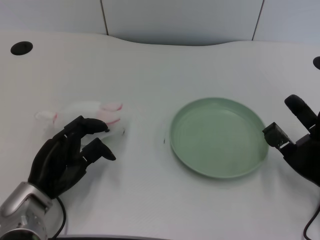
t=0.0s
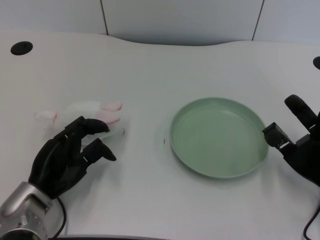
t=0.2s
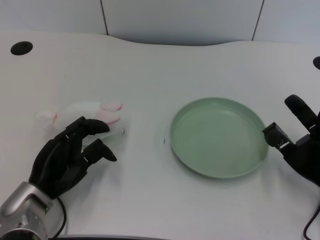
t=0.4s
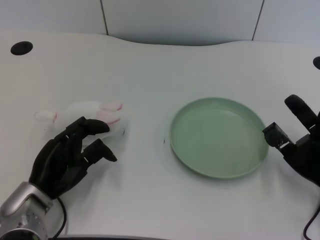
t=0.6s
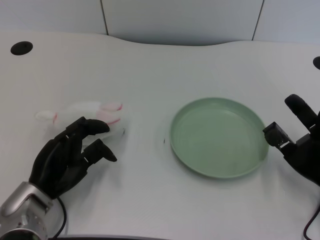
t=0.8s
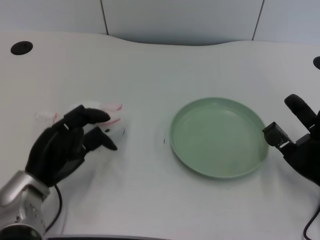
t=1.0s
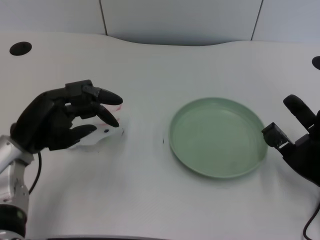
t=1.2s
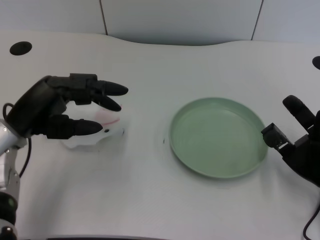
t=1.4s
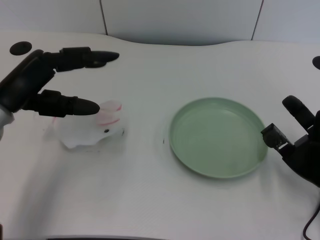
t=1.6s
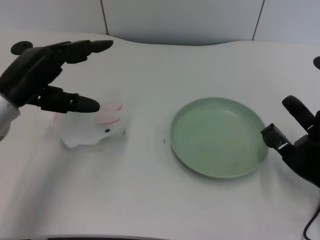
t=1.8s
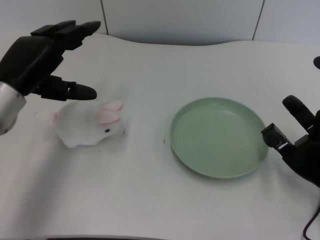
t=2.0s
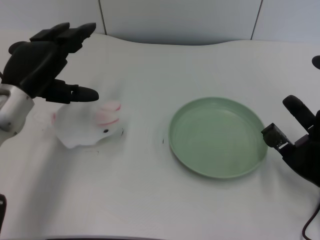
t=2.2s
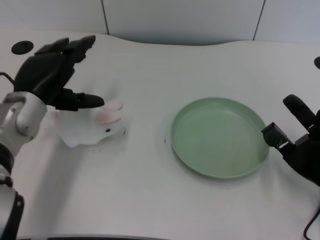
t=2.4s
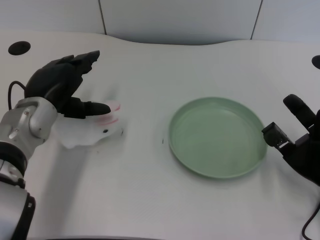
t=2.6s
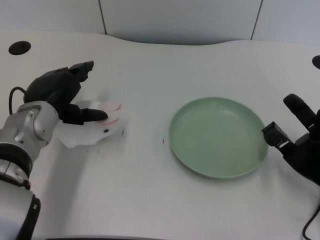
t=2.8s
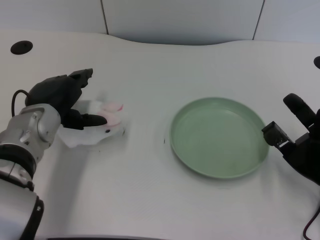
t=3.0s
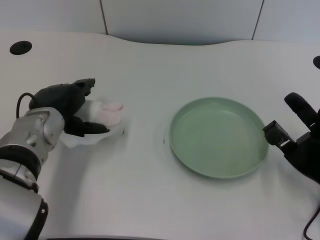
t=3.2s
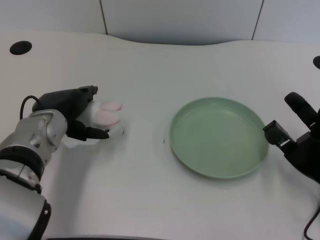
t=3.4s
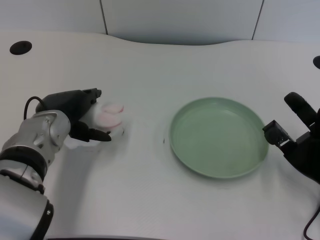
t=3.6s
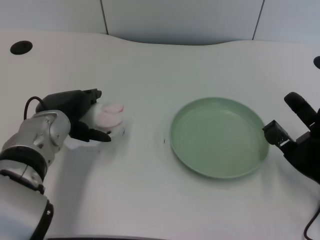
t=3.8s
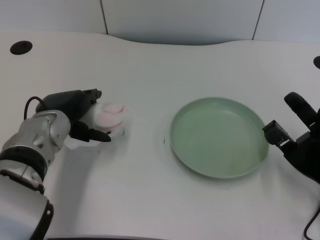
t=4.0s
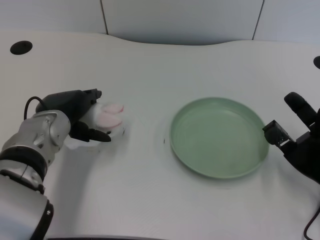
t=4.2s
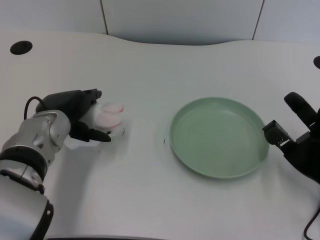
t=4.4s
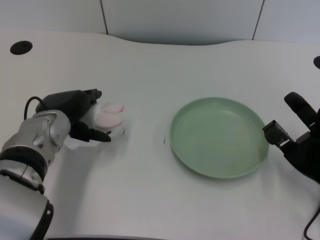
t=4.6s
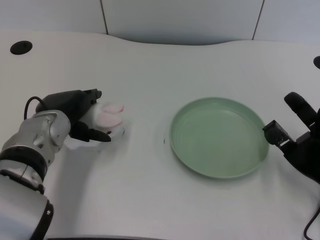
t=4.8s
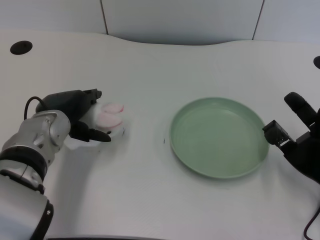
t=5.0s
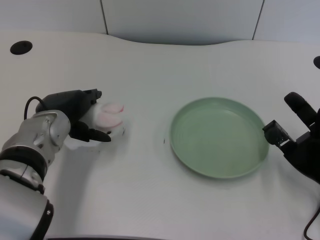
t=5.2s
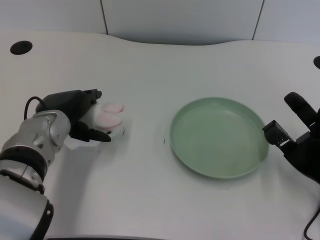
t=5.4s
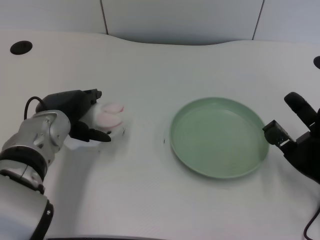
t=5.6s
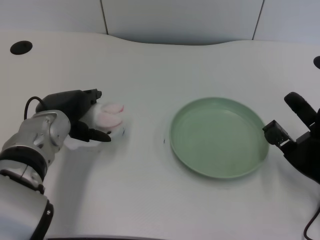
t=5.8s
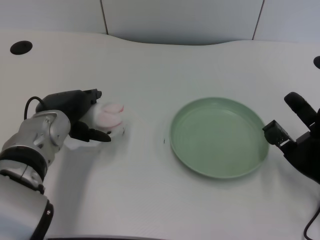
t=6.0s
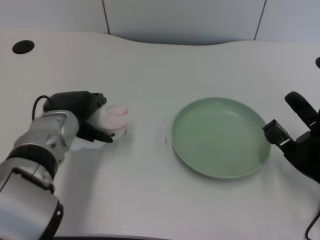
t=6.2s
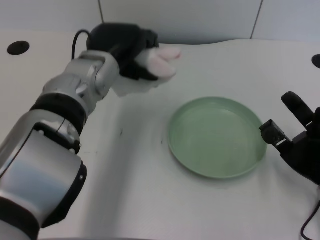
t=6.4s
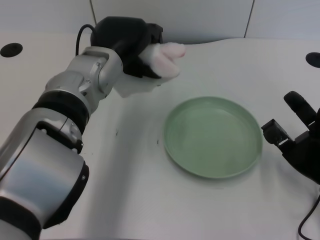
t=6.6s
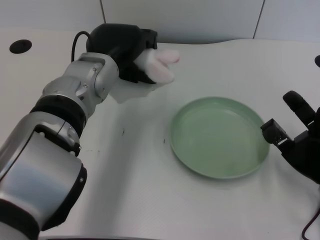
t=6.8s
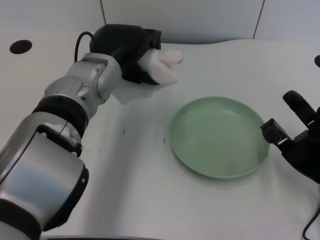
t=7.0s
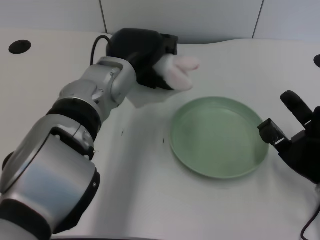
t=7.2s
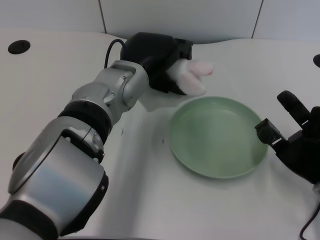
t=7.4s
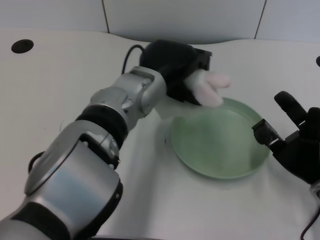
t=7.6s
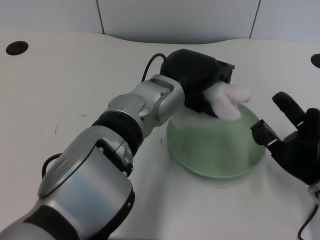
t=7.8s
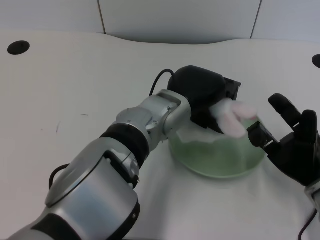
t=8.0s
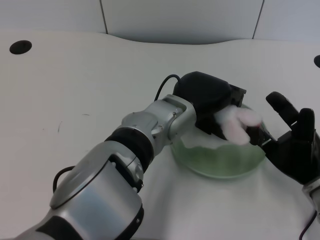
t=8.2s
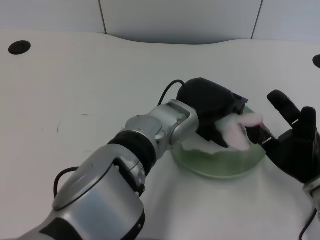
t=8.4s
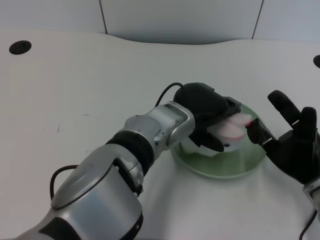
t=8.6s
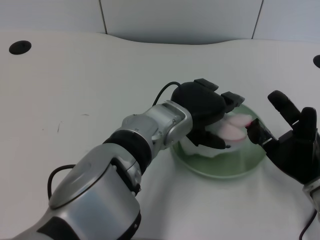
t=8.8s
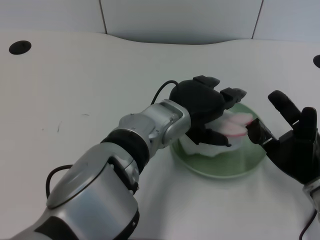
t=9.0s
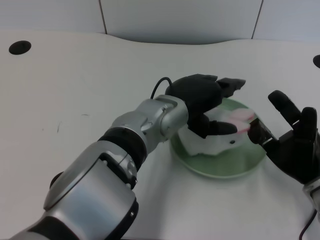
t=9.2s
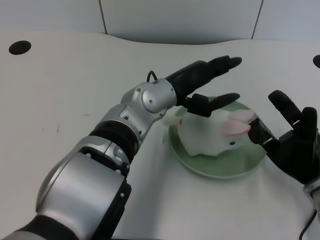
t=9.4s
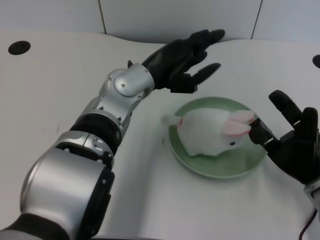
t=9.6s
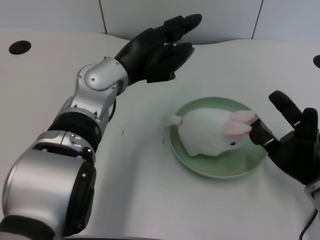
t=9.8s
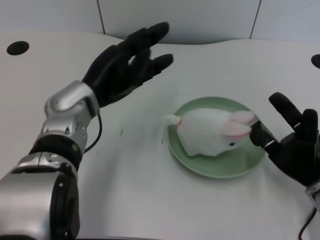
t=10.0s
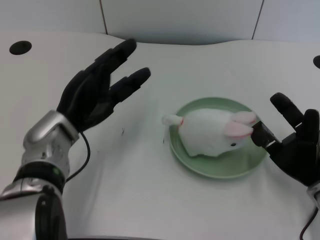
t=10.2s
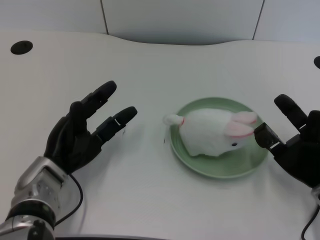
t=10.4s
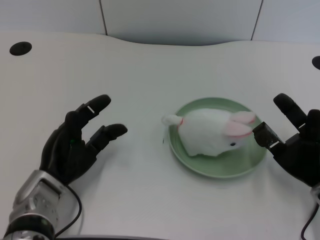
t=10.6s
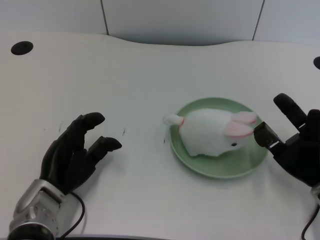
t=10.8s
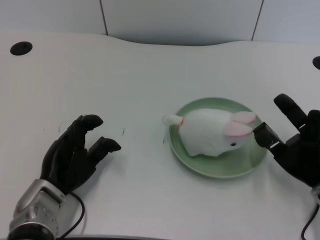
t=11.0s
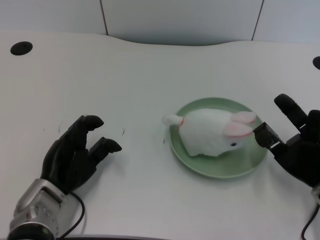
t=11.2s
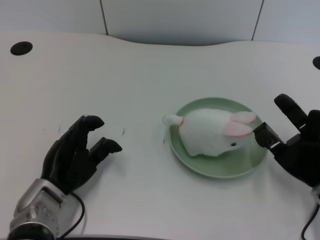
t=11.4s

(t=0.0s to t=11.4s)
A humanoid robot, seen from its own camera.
Task of the whole recording: pick up the rabbit doll from the table and place it on the plate.
Step, t=1.0s - t=4.4s: Grasp the rabbit doll with the left gripper.
Step, t=4.6s - t=8.8s: Place the rabbit doll into the plate with the left gripper.
t=1.4s - t=2.8s: The left hand moves roughly 5 cm.
t=2.8s - t=4.2s: The hands make only small movements.
t=4.2s - t=5.6s: Neither hand changes place.
t=5.6s - t=7.2s: The left hand goes approximately 10 cm to the right and upward.
t=7.2s - t=8.6s: The left hand heads to the right, covering approximately 10 cm.
t=8.6s - t=10.0s: The left hand goes about 15 cm to the left.
t=10.0s - t=11.4s: The left hand heads downward, backward and to the left, covering about 15 cm.

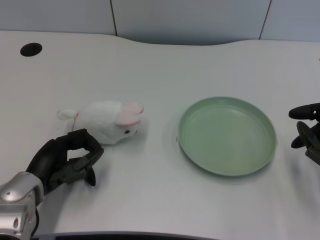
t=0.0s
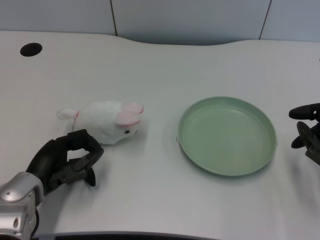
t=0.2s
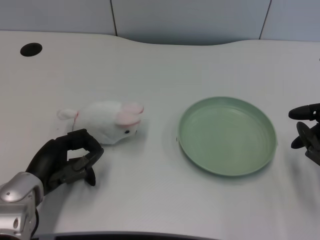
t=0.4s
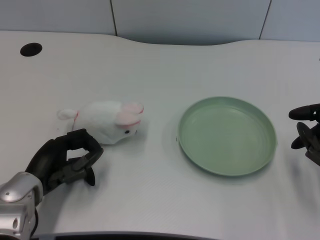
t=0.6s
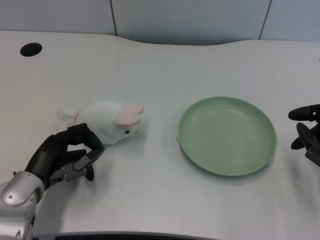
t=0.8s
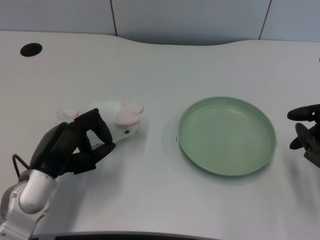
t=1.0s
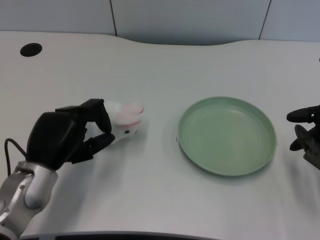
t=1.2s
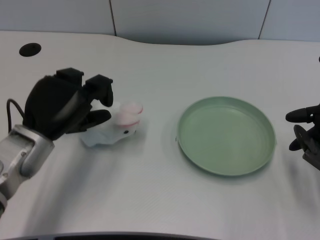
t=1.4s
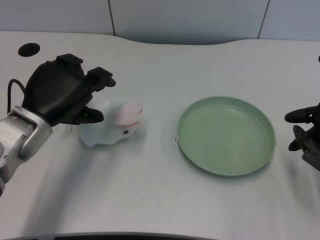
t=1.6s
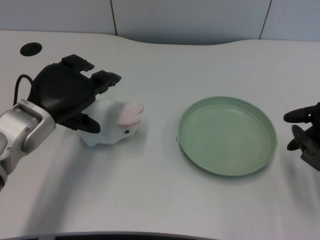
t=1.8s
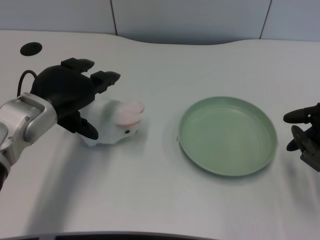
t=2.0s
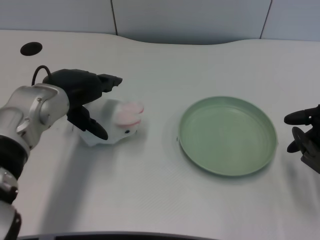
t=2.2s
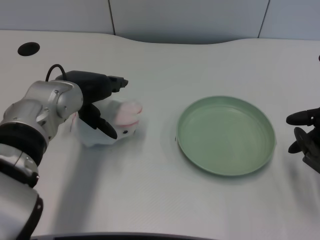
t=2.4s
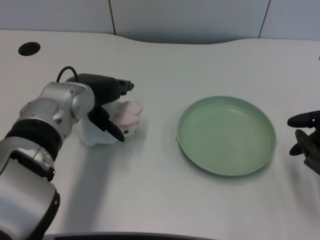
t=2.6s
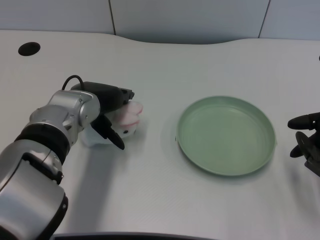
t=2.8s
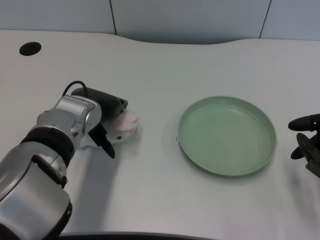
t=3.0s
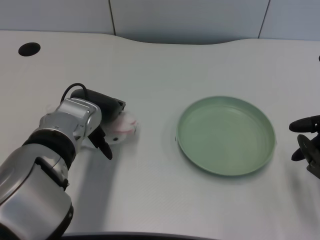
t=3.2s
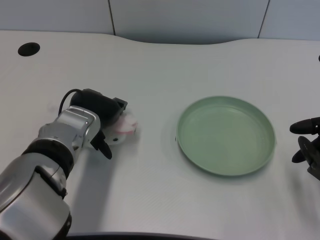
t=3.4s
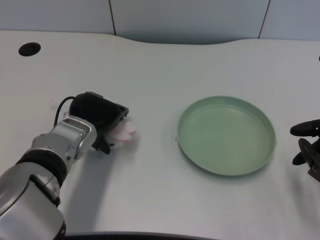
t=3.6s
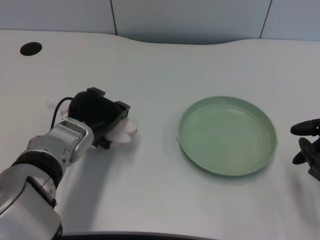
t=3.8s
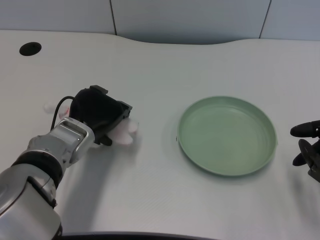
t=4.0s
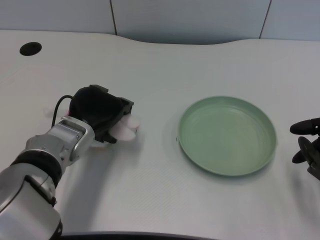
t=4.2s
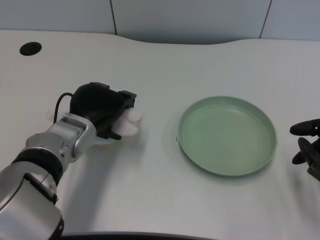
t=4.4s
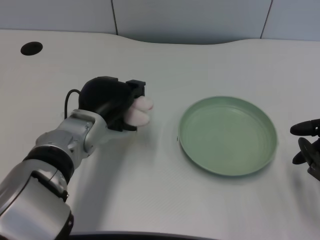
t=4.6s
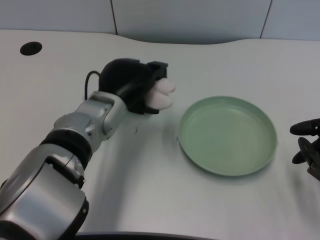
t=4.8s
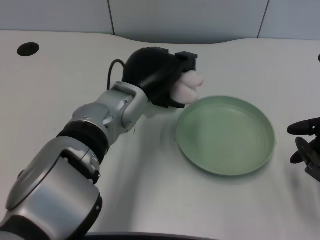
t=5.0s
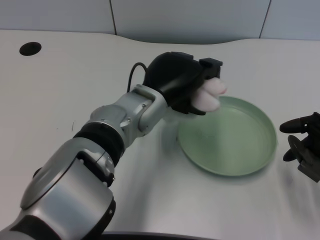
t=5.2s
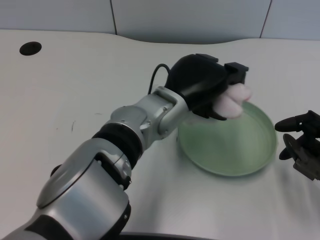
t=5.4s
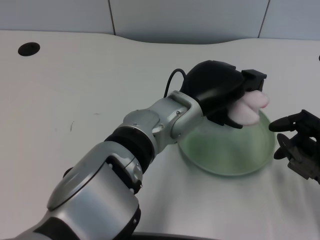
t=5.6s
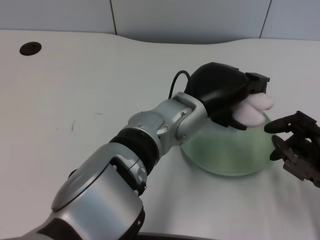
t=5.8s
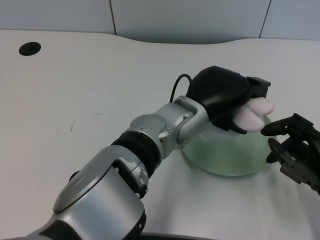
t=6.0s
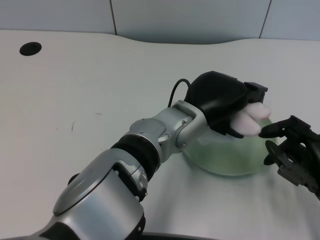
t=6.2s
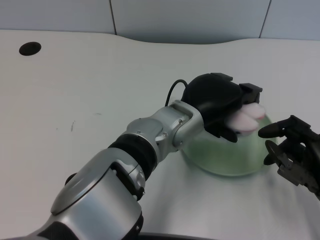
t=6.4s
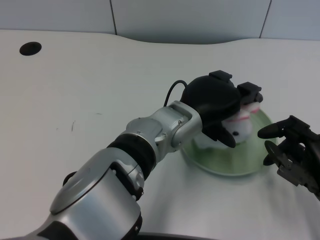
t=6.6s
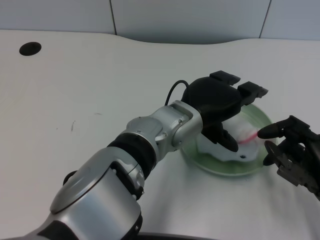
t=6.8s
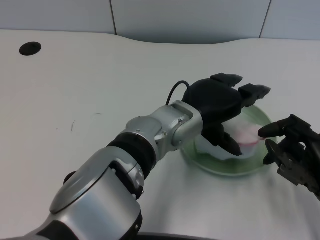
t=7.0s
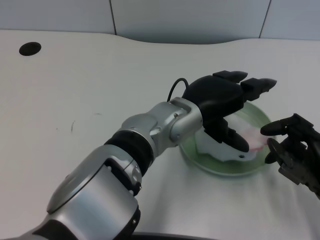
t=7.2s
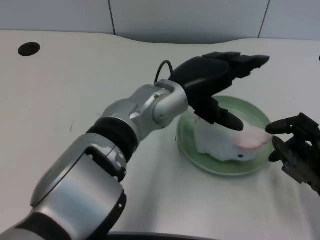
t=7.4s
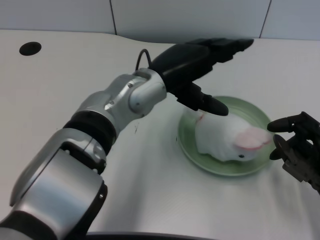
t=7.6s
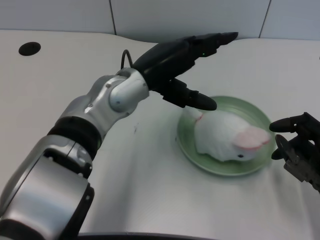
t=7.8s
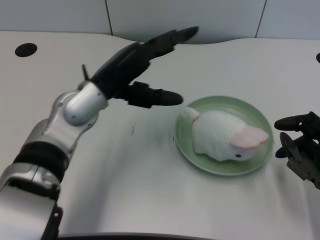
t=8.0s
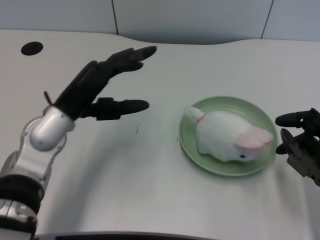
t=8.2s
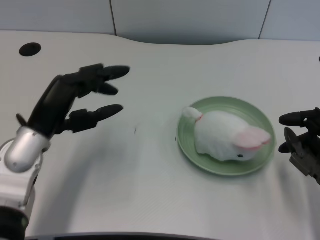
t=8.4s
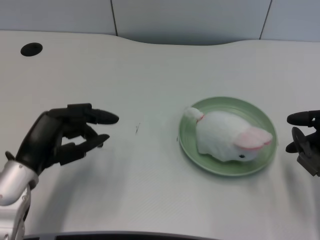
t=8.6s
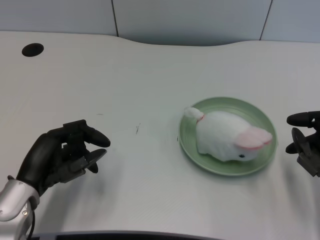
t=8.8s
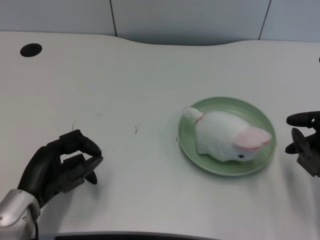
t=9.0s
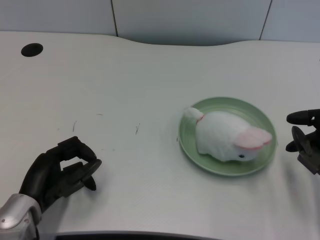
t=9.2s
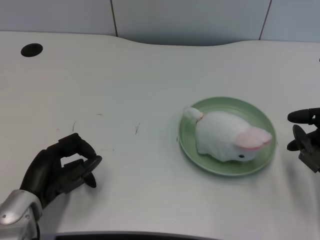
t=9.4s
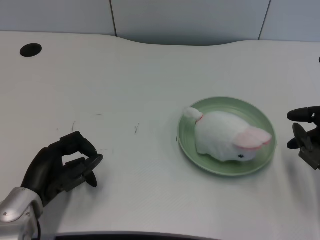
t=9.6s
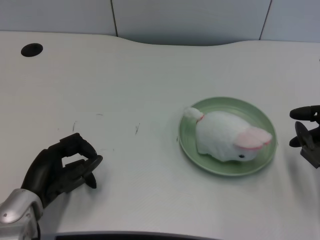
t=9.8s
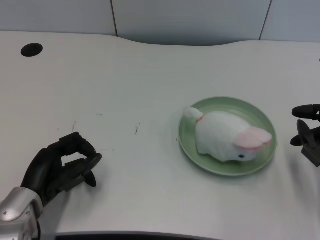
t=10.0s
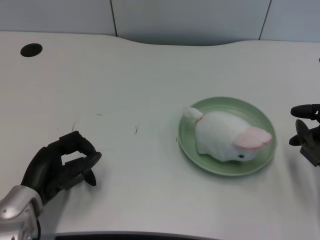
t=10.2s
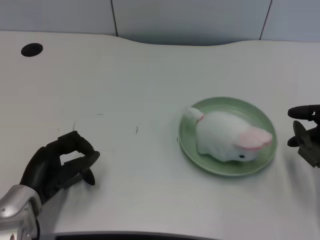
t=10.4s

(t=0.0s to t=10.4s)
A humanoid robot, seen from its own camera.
Task of the whole recording: pick up the rabbit doll from the table and place it on the plate.
Step, t=0.8s - t=4.4s: Grasp the rabbit doll with the left gripper.
Step, t=4.6s - t=6.8s: Place the rabbit doll into the plate with the left gripper.
t=1.4s - t=3.0s: The left hand is displaced to the right and forward by about 10 cm.
t=4.4s - t=6.0s: The left hand travels to the right by roughly 15 cm.
t=7.4s - t=9.0s: The left hand goes some 25 cm to the left, downward and backward.
t=9.0s - t=10.4s: There are only small adjustments of the hands.
